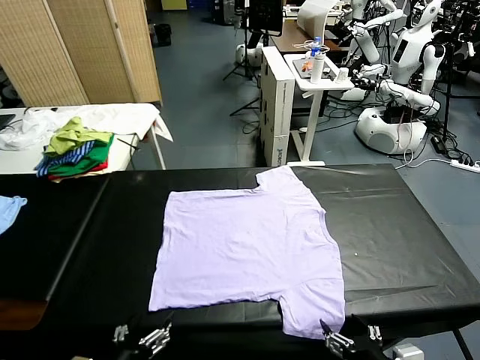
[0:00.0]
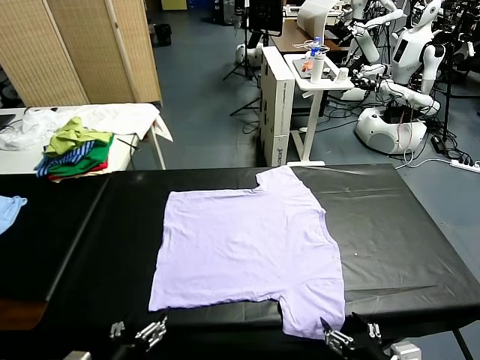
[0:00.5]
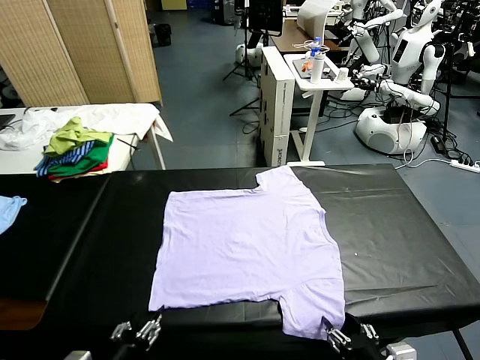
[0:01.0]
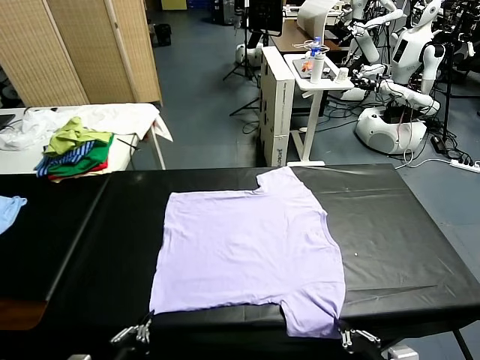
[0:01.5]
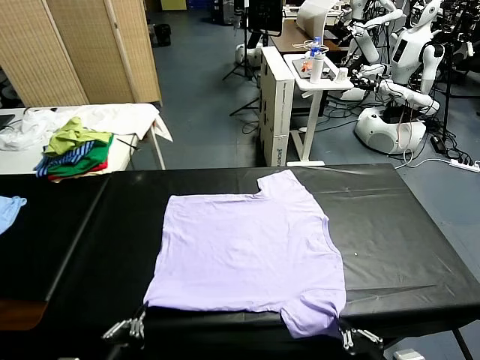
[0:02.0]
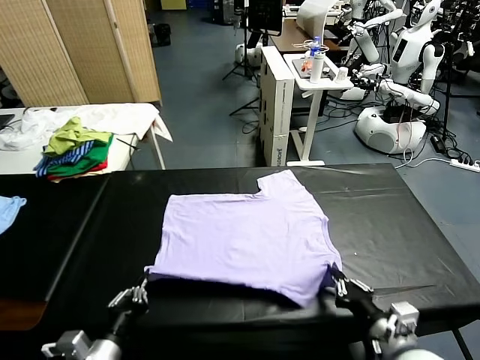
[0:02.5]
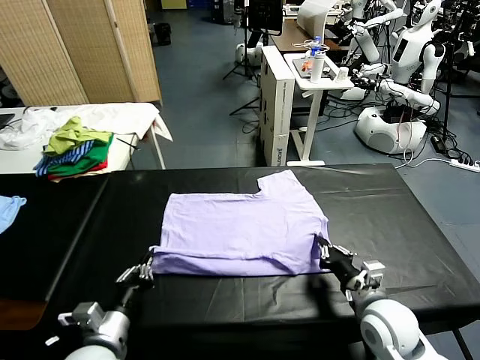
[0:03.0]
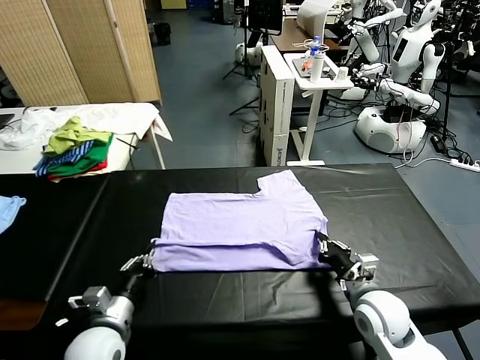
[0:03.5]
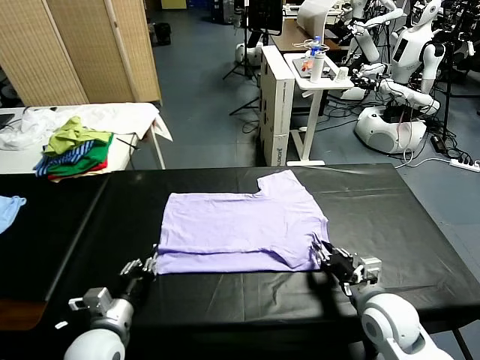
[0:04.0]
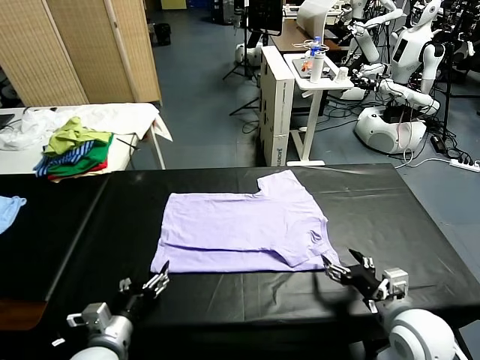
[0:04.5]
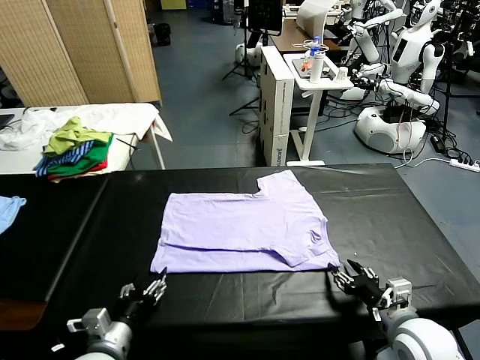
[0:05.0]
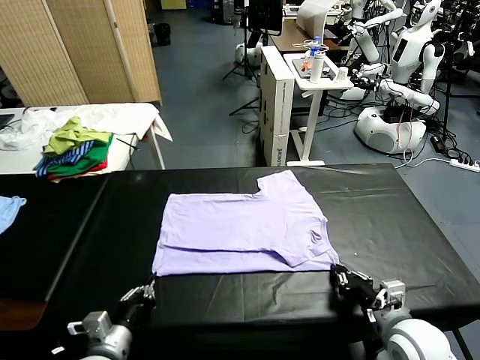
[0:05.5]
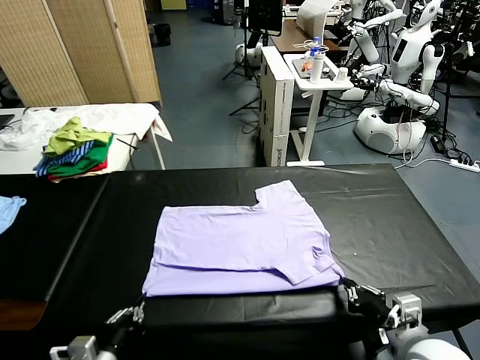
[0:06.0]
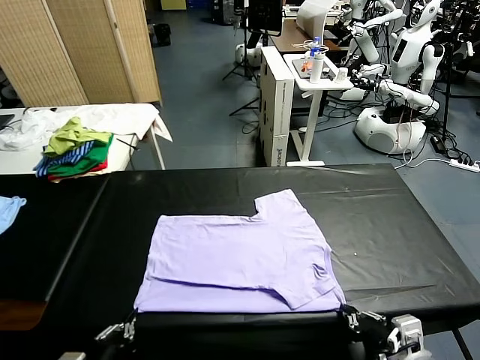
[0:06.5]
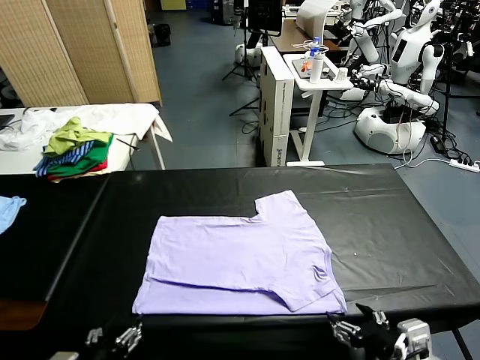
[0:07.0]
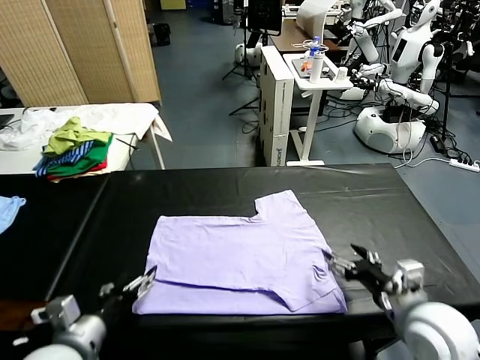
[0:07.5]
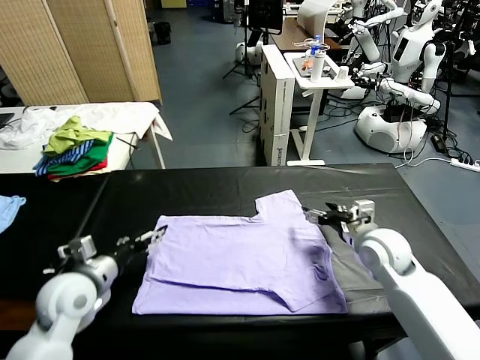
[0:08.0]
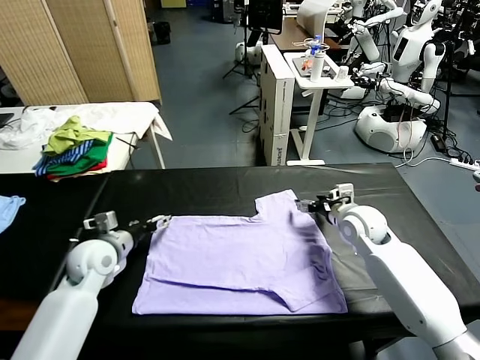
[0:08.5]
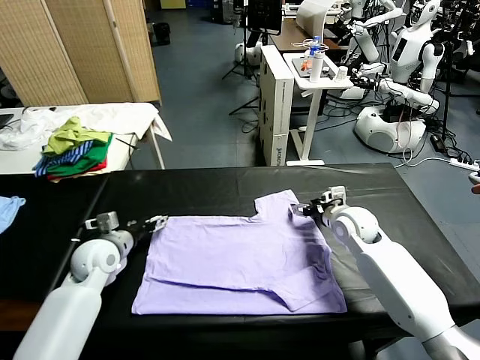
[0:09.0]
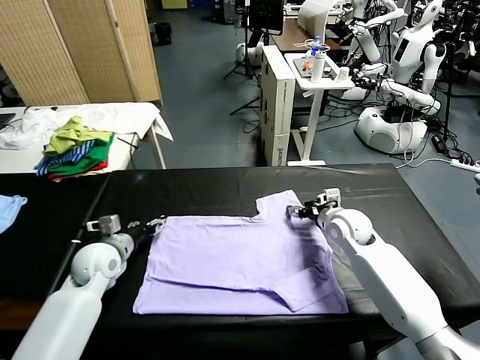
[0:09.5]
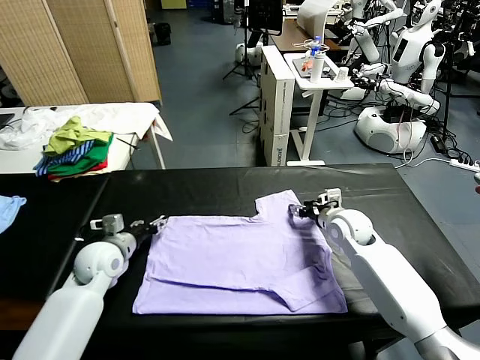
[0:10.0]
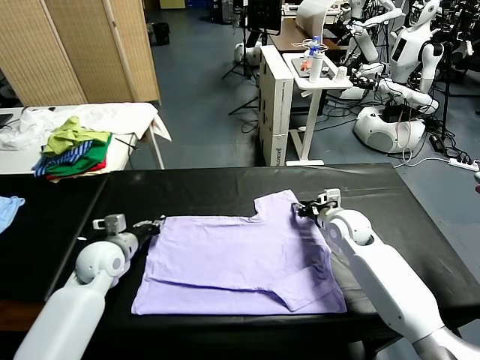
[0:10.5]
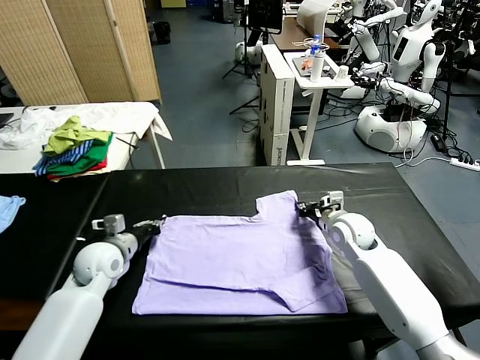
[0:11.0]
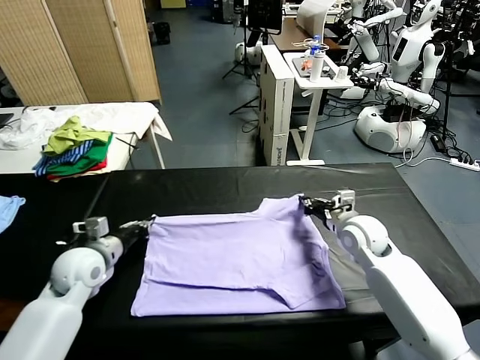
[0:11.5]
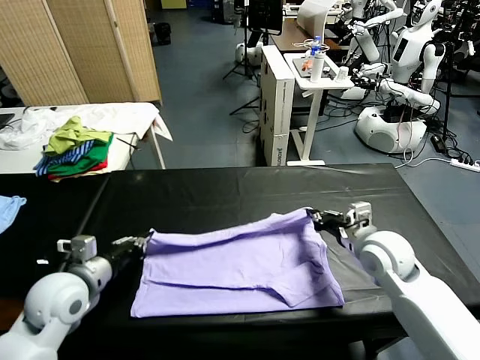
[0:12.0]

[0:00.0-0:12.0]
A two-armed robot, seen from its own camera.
Task of the whole recording: fold and organize the clothes.
Step, 0:00.0 to 0:01.5: use both grippers simultaneously to clamp the lower edge of the clothing fabric.
Step, 0:02.0 to 0:04.0: use both grippers to drag the lower edge of the fabric forward and fold it over the upper edge.
Step, 0:04.5 to 0:06.5: Drag the clothes downward with both gripper.
Step, 0:07.5 to 0:10.5: use both grippers simultaneously to clamp the upper edge of the clothing fabric.
0:02.0 to 0:04.0: The grippers both shift forward by approximately 10 cm. The right gripper opens its fingers. Meanwhile the left gripper opens.
0:04.0 to 0:06.0: The two grippers go about 10 cm backward. The right gripper closes its fingers. Meanwhile the left gripper closes up.
0:06.0 to 0:08.0: The grippers both shift forward by about 25 cm. The right gripper opens up, while the left gripper opens up.
0:08.0 to 0:10.0: The right gripper ends up about 5 cm from where it was, and closes up, while the left gripper travels forward and downward by roughly 10 cm, and closes its fingers.
0:10.0 to 0:12.0: The grippers both shift backward and upward by roughly 15 cm. The left gripper closes, while the right gripper closes up.

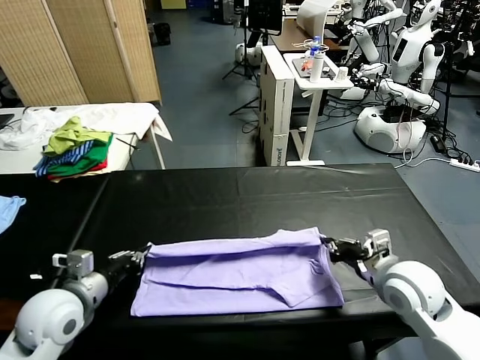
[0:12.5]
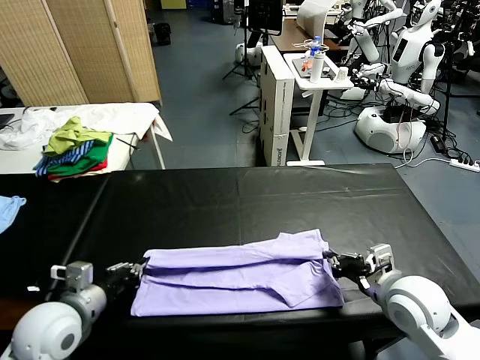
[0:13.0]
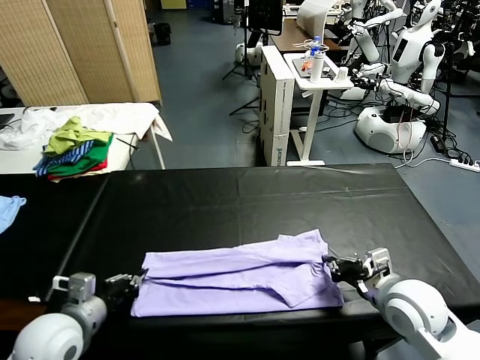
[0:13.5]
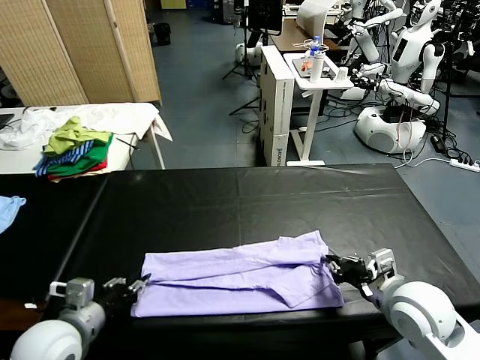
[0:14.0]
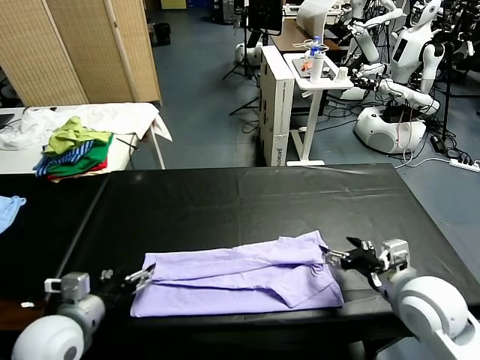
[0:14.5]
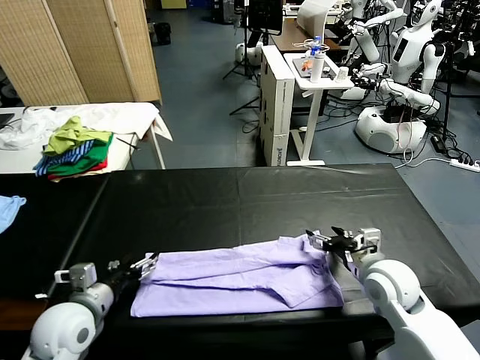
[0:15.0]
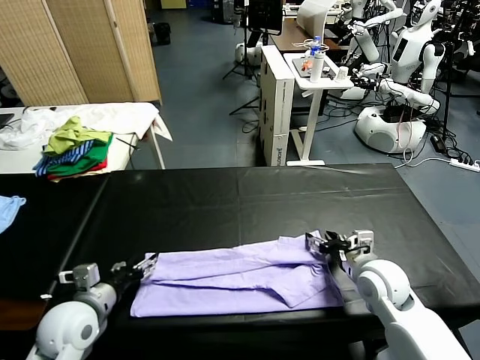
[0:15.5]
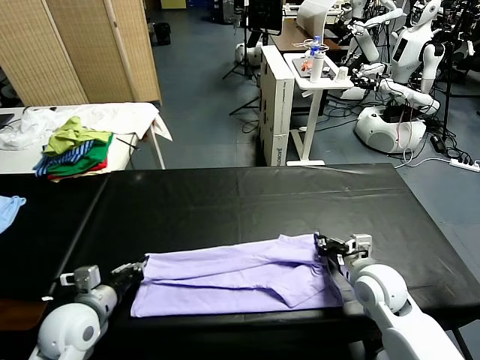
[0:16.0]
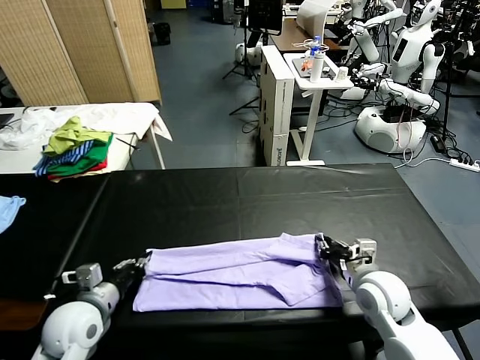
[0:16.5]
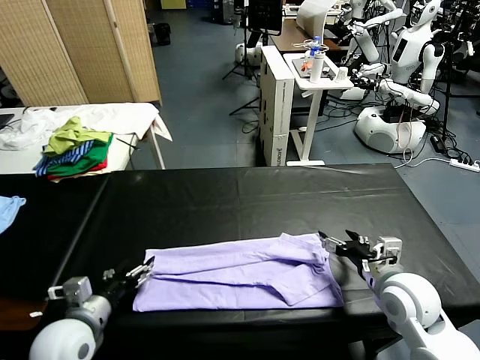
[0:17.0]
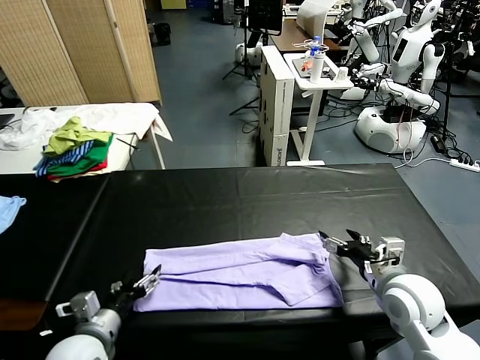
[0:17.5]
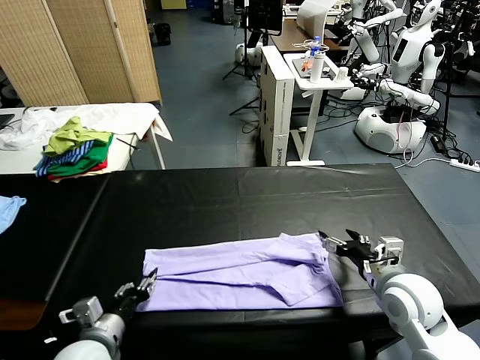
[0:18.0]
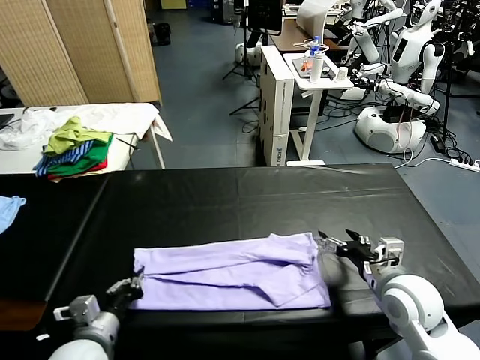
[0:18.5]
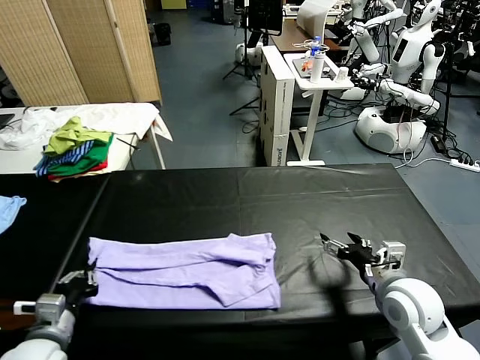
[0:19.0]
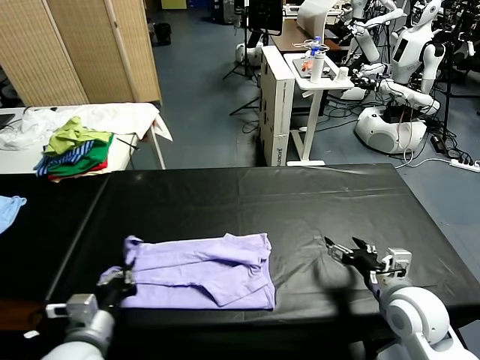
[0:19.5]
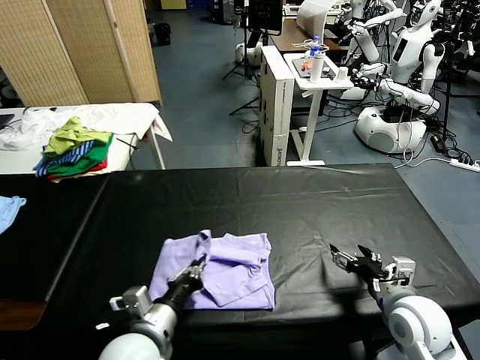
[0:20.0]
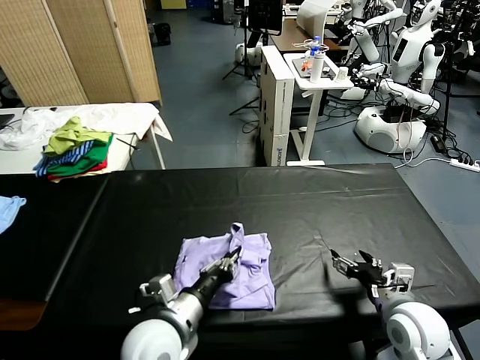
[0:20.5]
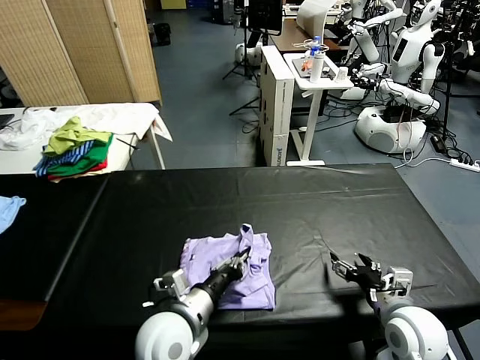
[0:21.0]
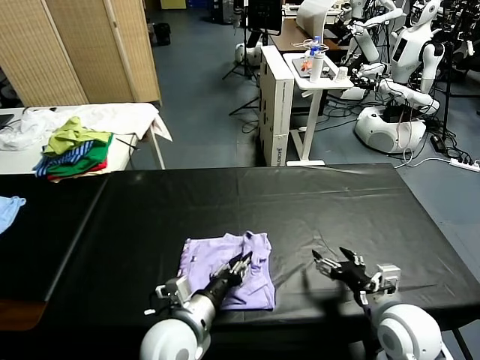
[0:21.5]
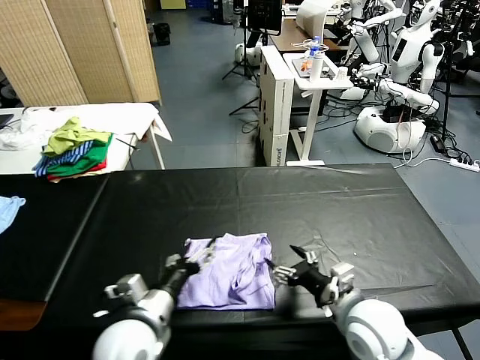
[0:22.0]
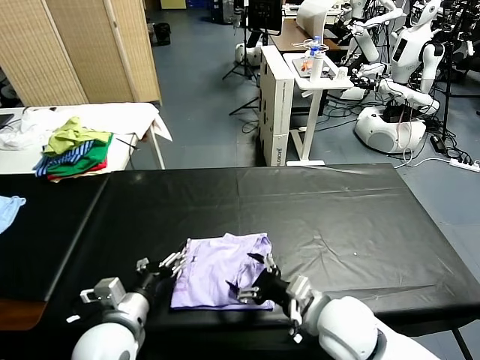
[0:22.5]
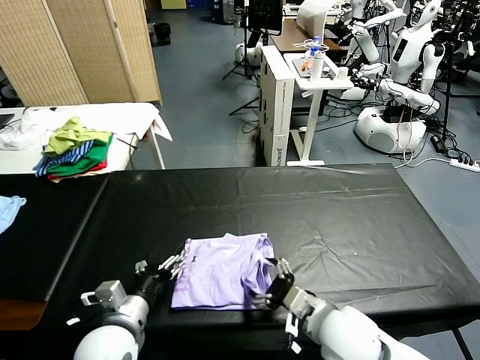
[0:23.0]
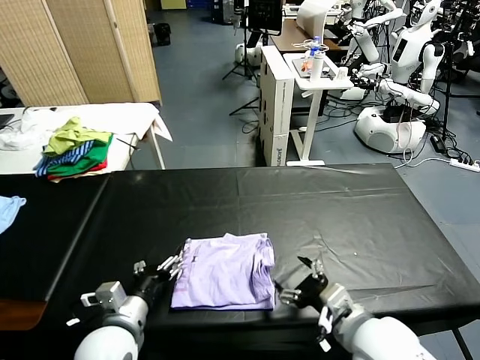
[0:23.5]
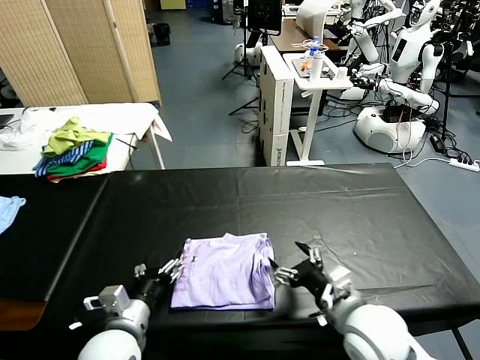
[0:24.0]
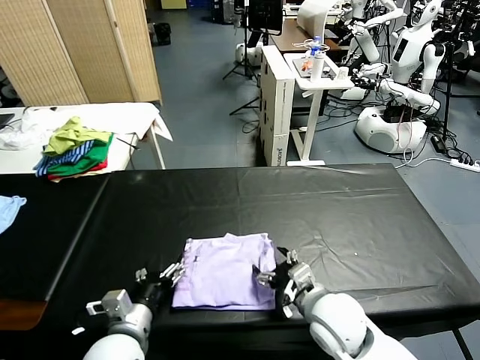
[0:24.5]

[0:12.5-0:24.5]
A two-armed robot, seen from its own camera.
Task of the whole recording: fold and organize the clothes.
Step, 0:14.5 to 0:18.0: use the left gripper to clamp the left edge of the fabric.
Step, 0:18.5 to 0:21.5: use the left gripper to drag the left edge of the fabric to the left and folds it over the right edge.
0:12.5 to 0:14.5: The left gripper opens its fingers. Meanwhile the right gripper opens up.
0:14.5 to 0:16.5: The right gripper closes up. Meanwhile the left gripper moves some 5 cm, and closes up.
0:16.5 to 0:18.5: The right gripper opens up; the left gripper is displaced backward by roughly 5 cm, and opens and closes again.
0:18.5 to 0:20.5: The left gripper heads to the right, covering roughly 15 cm. Meanwhile the right gripper ends up some 5 cm from where it was.
0:20.5 to 0:22.5: The right gripper shifts some 15 cm to the left, while the left gripper travels to the left by some 10 cm, and opens up.

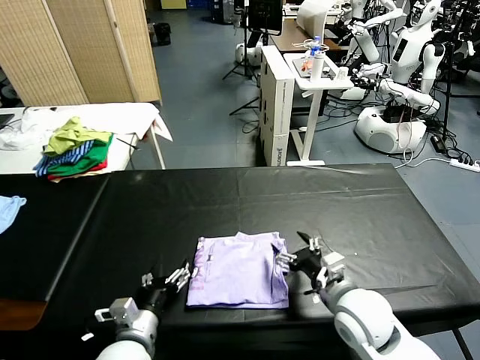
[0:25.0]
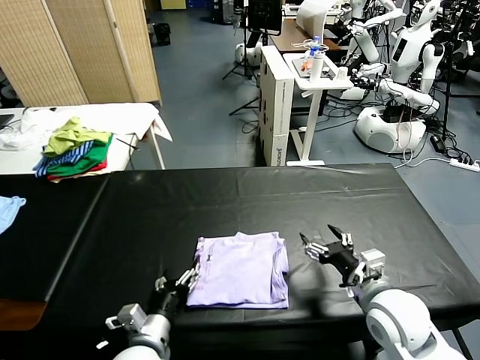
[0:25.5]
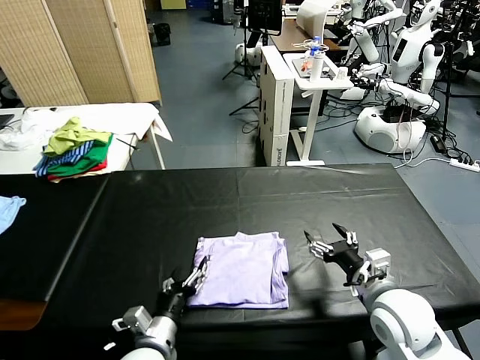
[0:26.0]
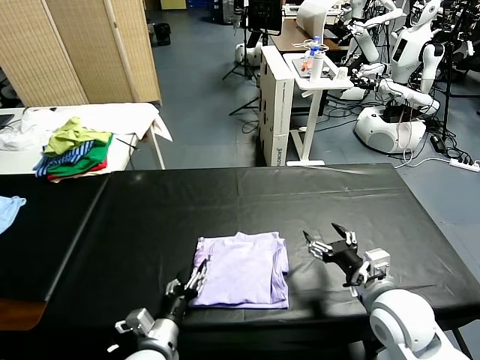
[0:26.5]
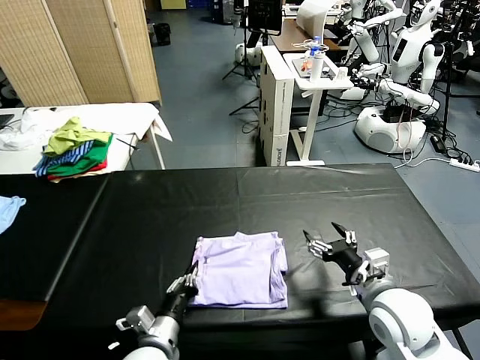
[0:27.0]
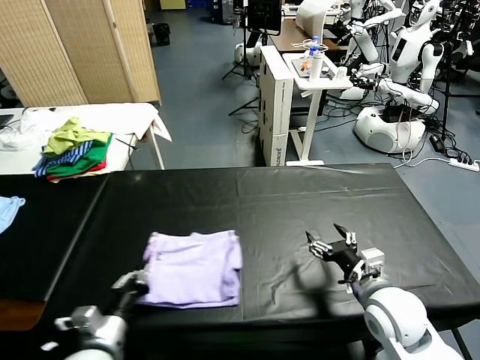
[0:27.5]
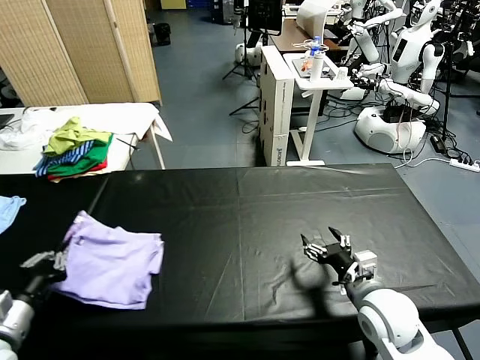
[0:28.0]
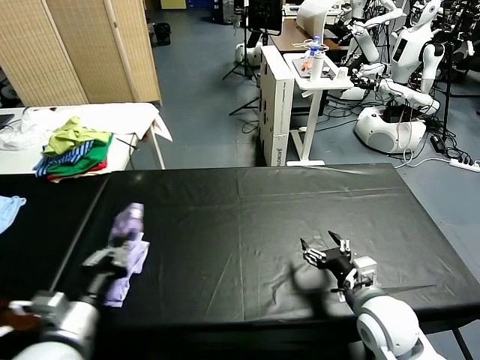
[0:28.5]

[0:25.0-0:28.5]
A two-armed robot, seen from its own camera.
Task of the whole recording: fold and organize the clothes.
0:25.0 to 0:27.0: The left gripper closes. Meanwhile the right gripper is displaced to the right by about 5 cm.
0:27.0 to 0:28.5: The left gripper heads upward and to the left, covering some 20 cm.
